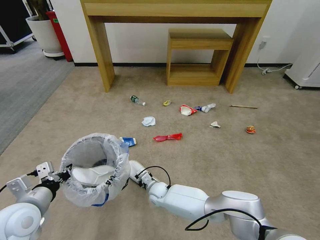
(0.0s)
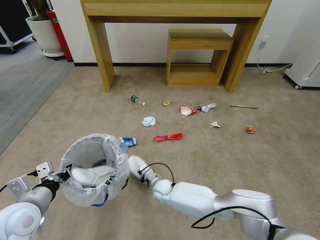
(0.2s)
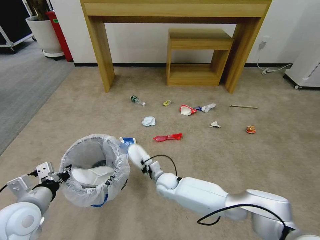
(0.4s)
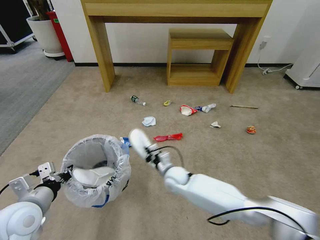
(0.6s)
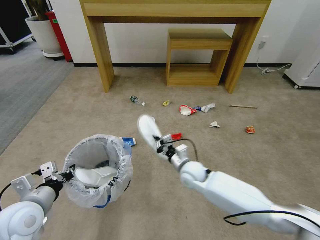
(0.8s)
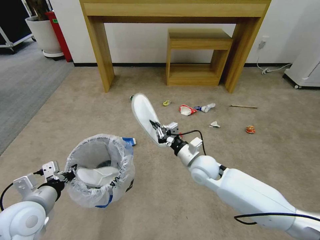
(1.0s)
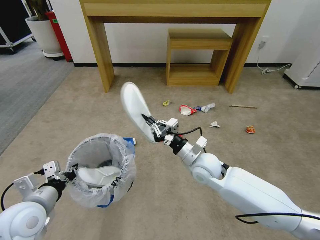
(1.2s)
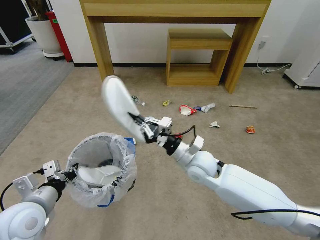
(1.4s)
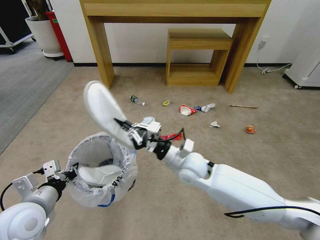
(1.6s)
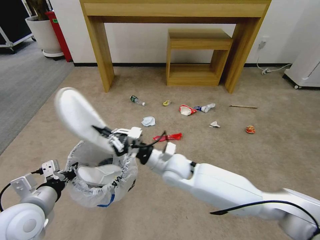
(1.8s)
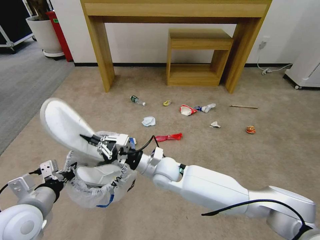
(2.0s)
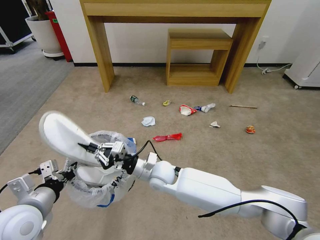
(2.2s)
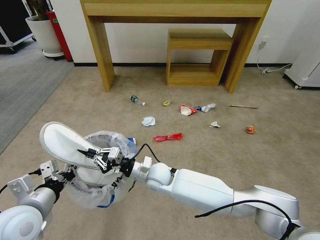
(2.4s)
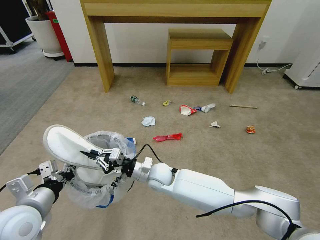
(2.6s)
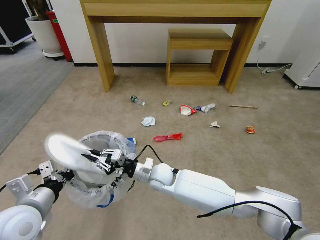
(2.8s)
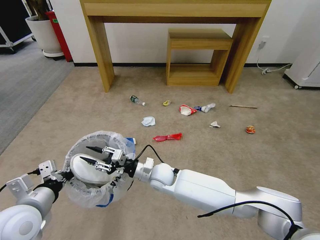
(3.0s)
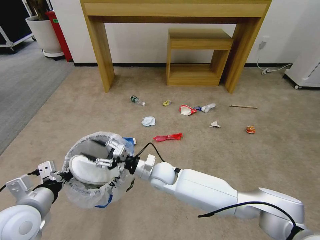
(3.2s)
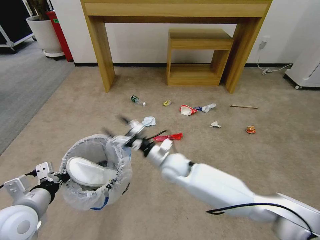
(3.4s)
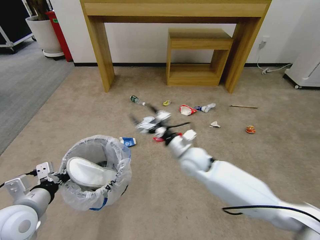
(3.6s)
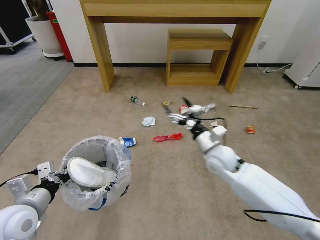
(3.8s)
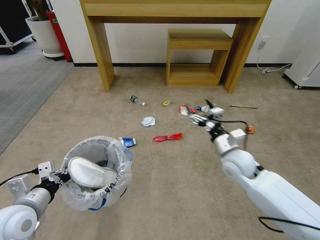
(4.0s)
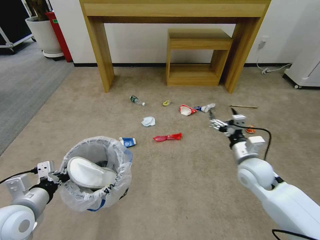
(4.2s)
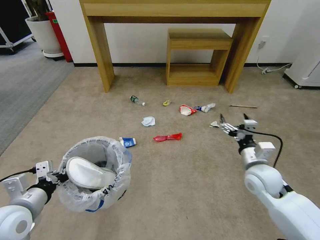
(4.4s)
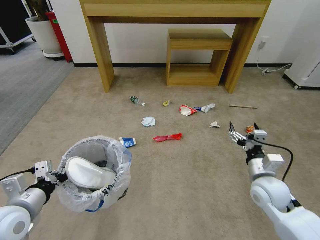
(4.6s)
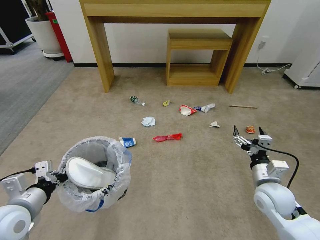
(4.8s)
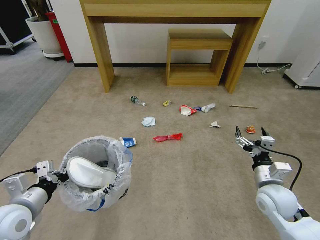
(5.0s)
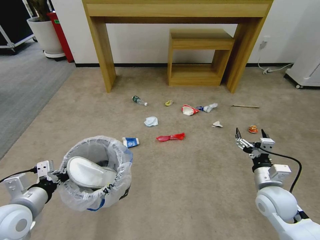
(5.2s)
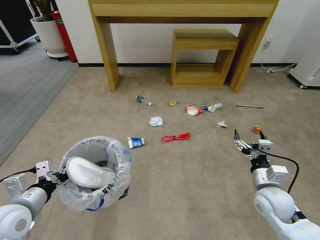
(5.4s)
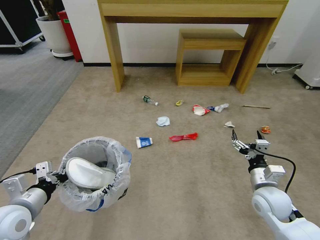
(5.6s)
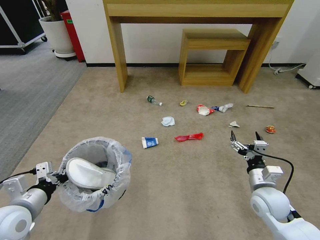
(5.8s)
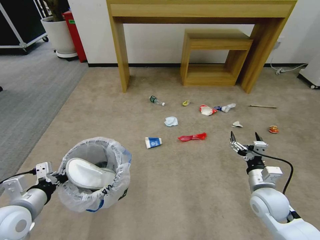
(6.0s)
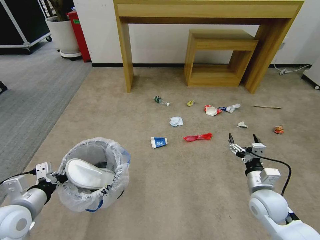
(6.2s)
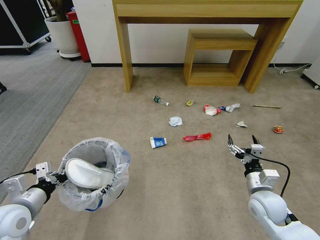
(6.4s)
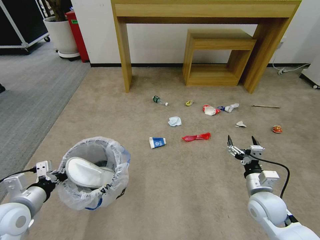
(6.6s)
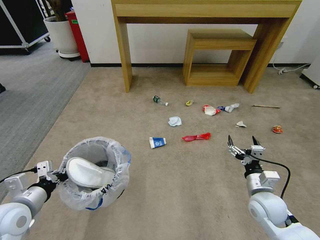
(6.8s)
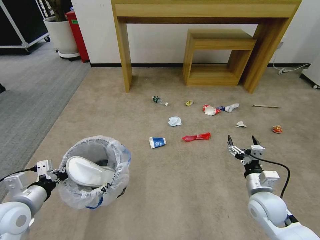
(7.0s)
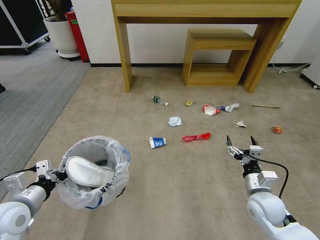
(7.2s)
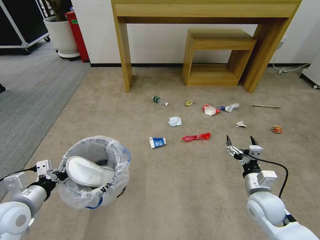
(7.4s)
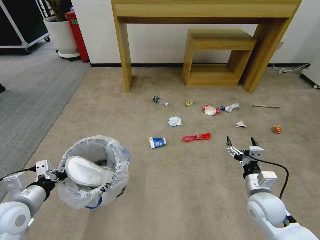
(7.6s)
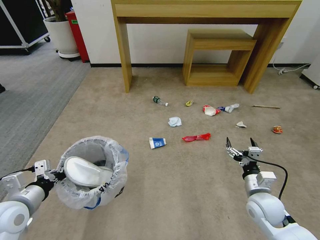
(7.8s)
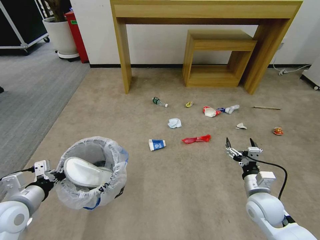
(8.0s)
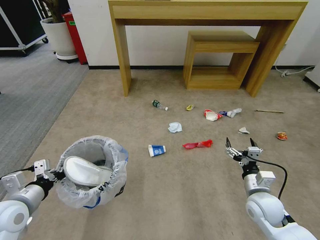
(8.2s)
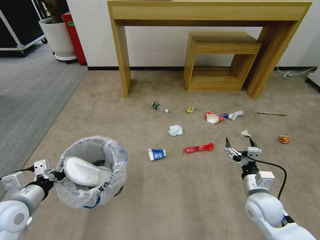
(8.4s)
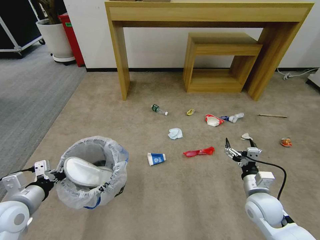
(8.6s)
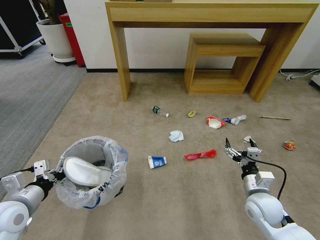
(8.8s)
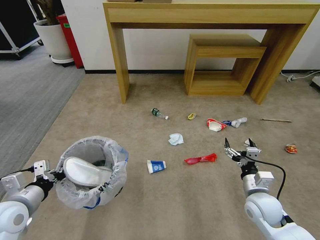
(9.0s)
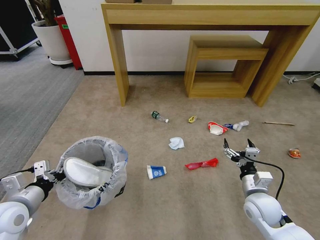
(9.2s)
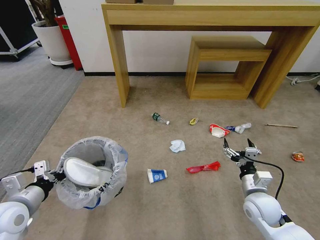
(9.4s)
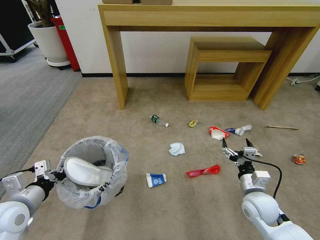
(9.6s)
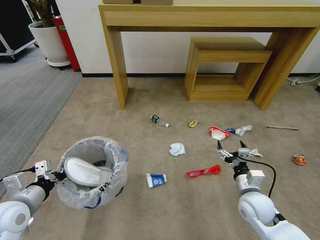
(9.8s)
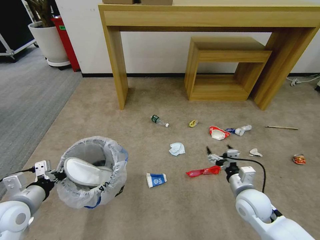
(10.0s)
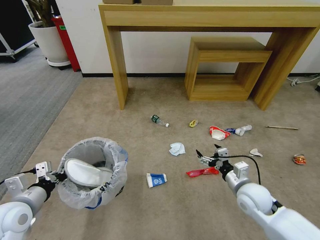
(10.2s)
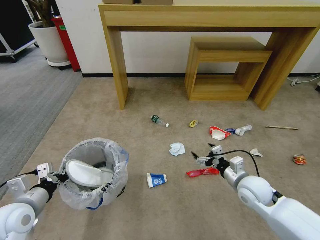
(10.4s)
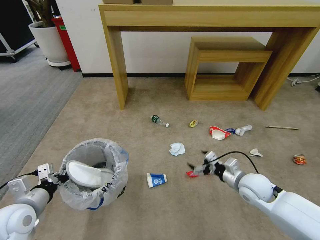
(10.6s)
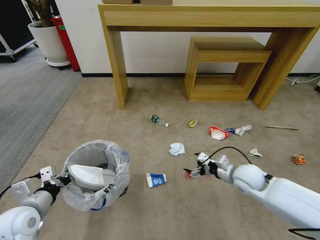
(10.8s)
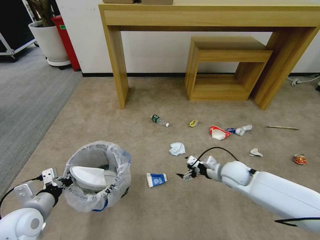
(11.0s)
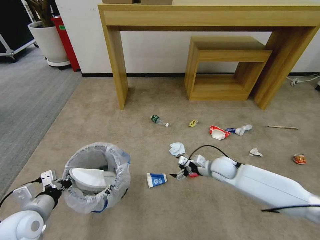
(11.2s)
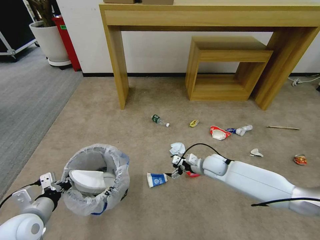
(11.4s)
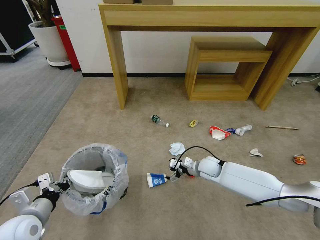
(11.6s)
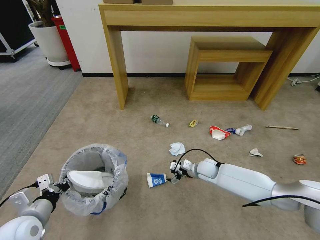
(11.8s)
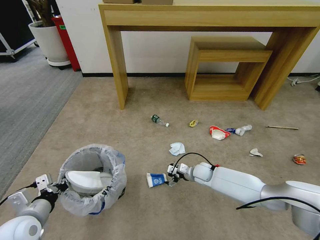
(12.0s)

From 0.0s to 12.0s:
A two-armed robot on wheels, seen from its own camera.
Task of the whole recording: Pick up the trash bin and place the garbage on the floor into it.
From 0.0s to 1.6s: The right gripper shifts approximately 25 cm upward.
From 1.6s to 3.0s: The right gripper heads to the left and downward, covering some 15 cm, and opens its fingers.
From 3.0s to 4.4s: The right gripper moves to the right, about 30 cm, and opens its fingers.
From 4.4s to 6.0s: The right gripper moves downward, approximately 5 cm.
From 6.0s to 7.6s: There are only small adjustments of the grippers.
From 9.0s to 10.4s: The right gripper moves about 5 cm.
From 10.4s to 12.0s: The right gripper travels downward, forward and to the left by some 20 cm.

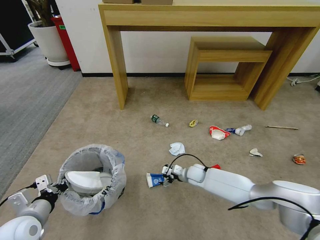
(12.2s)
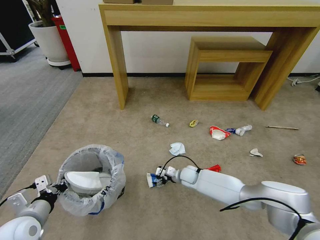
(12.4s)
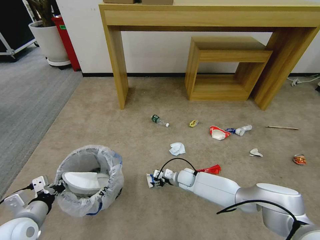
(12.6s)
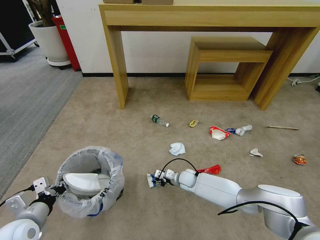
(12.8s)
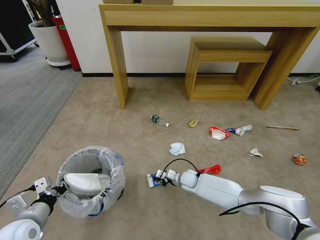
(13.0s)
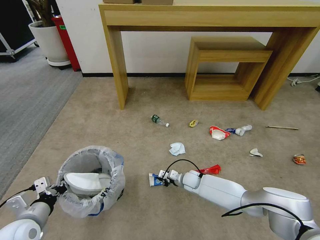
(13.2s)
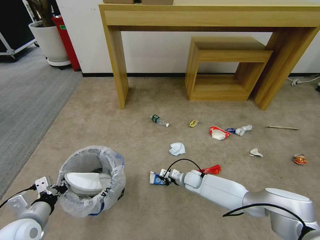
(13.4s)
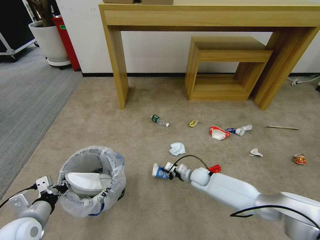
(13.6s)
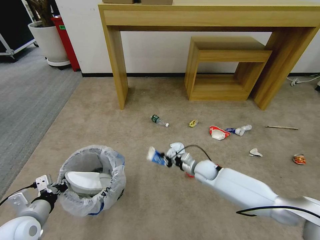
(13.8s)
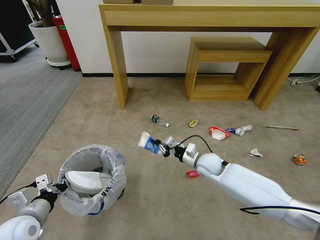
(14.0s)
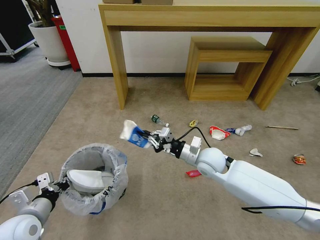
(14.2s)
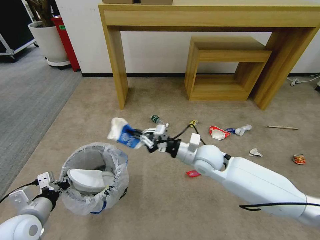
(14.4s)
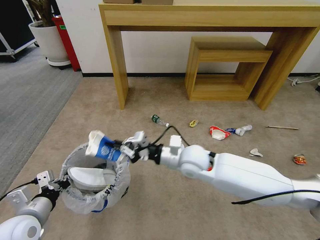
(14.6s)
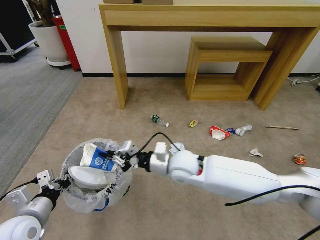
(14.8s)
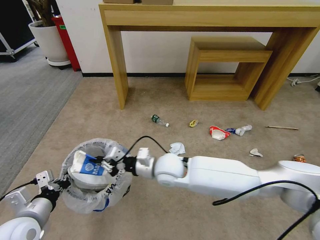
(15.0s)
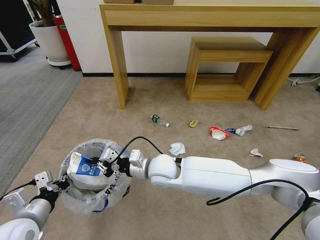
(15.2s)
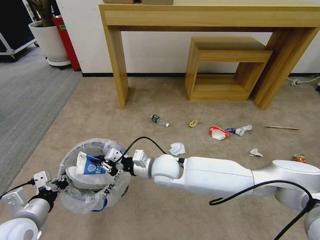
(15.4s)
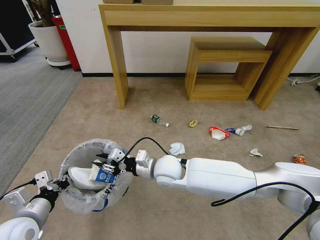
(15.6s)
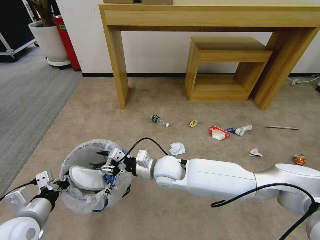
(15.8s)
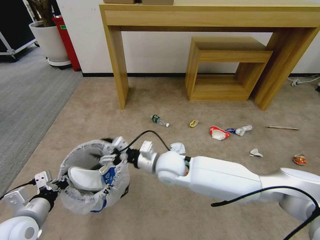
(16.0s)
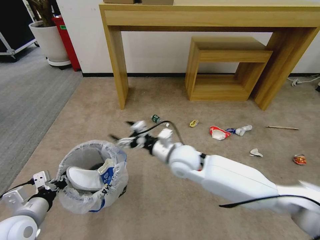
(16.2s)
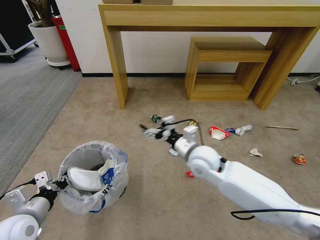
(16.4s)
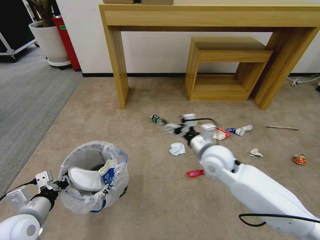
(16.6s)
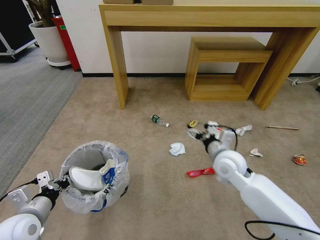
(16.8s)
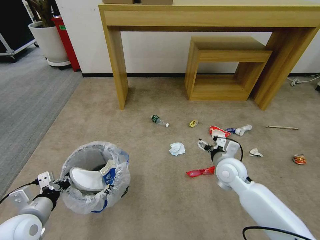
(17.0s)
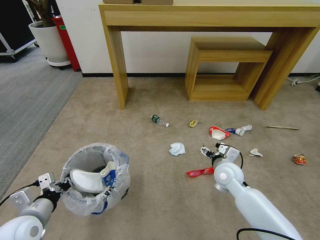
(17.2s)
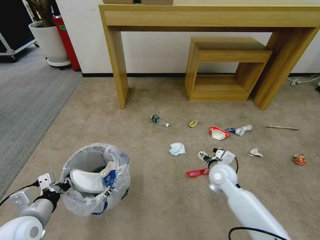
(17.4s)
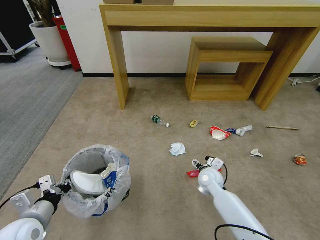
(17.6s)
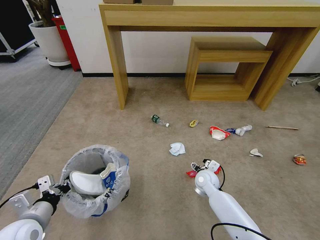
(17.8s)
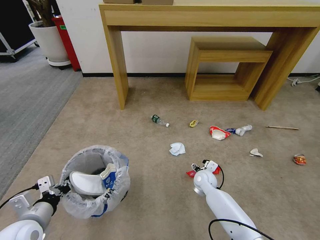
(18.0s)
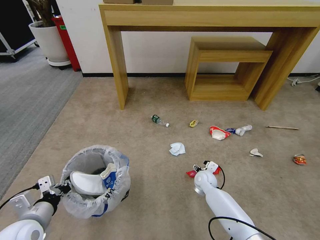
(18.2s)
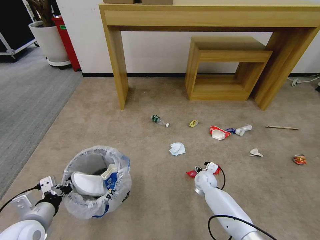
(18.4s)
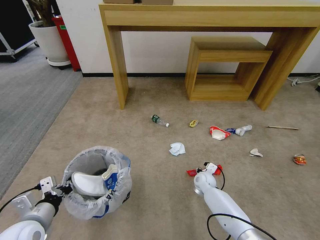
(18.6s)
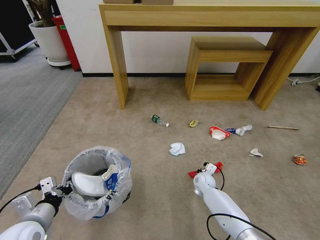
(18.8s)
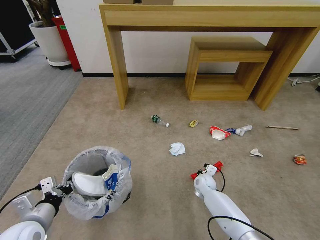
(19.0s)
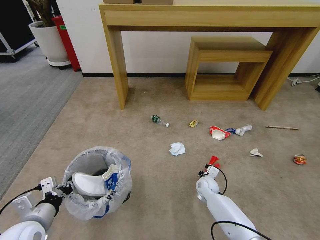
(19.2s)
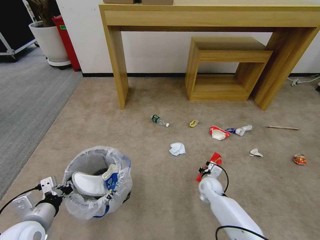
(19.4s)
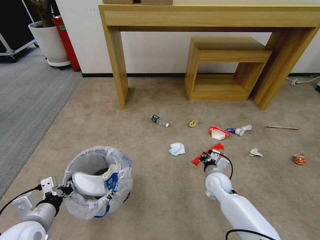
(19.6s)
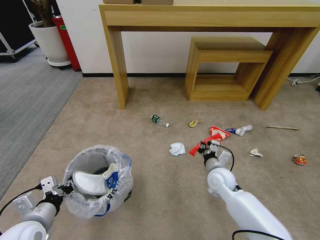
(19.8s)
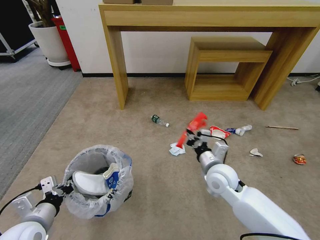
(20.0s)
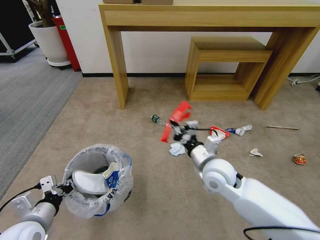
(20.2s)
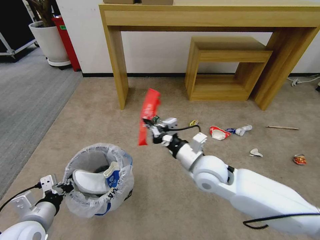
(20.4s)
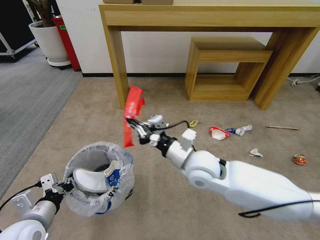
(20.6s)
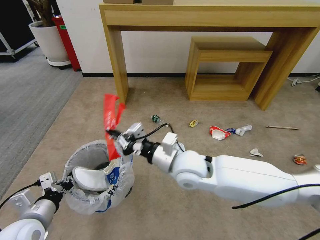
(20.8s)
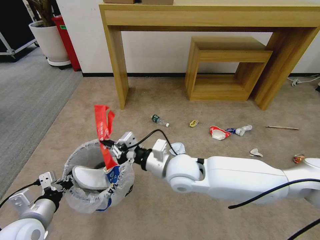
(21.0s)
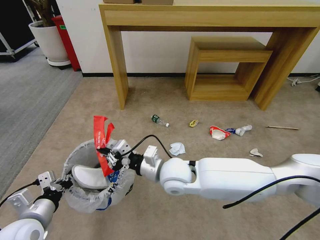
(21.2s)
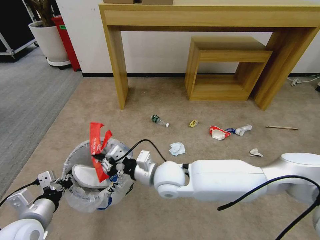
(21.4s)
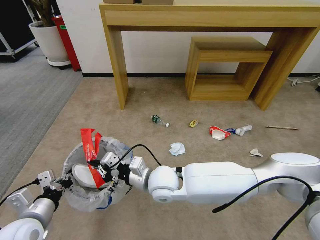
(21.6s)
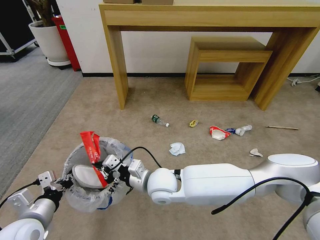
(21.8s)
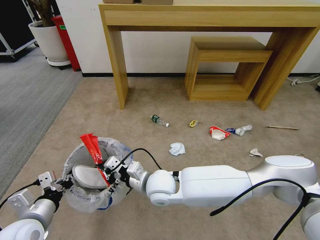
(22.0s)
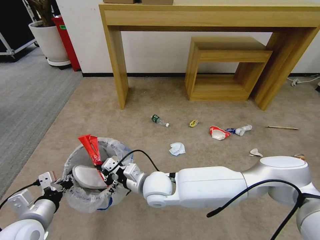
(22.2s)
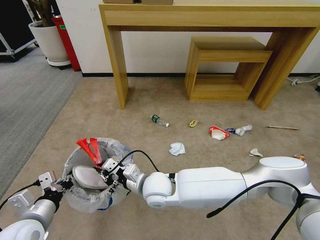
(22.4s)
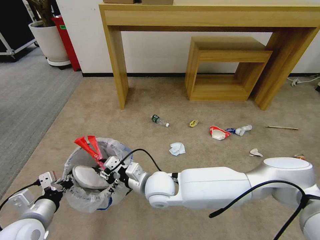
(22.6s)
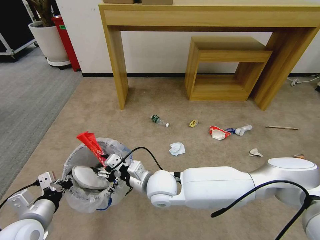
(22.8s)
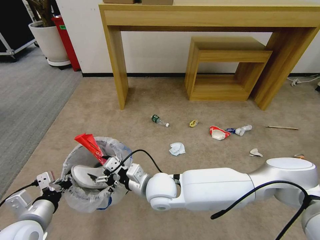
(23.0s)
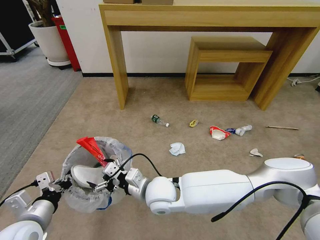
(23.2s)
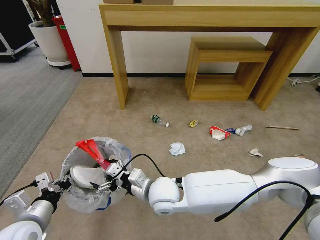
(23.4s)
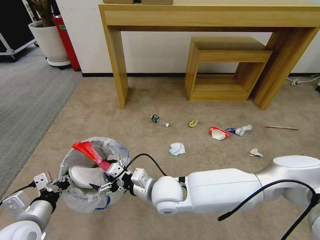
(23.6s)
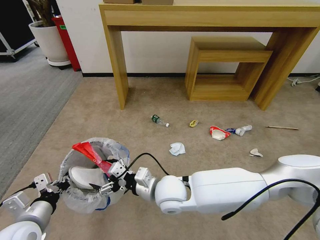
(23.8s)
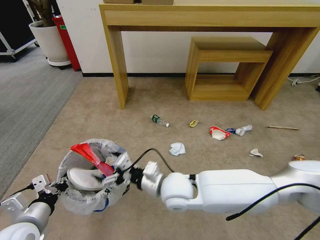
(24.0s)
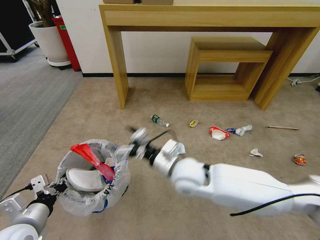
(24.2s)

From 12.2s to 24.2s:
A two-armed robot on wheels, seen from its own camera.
Task of the whole recording: Pick up the trash bin and place the garbage on the floor into it.
From 12.2s to 13.8s: The right gripper ends up about 5 cm from where it was, and closes its fingers.
From 13.8s to 15.2s: The right gripper moves to the left, upward and backward, about 25 cm.
From 15.2s to 16.6s: The right gripper heads to the right, covering some 20 cm, and opens up.
From 16.6s to 18.2s: The right gripper goes some 25 cm downward.
From 18.2s to 19.8s: The right gripper heads upward, covering about 10 cm, and closes.
From 19.8s to 21.2s: The right gripper moves to the left and upward, roughly 20 cm.
From 21.2s to 22.6s: The right gripper moves downward, some 5 cm.
From 22.6s to 24.2s: The right gripper shifts about 10 cm to the right and upward, and opens.
